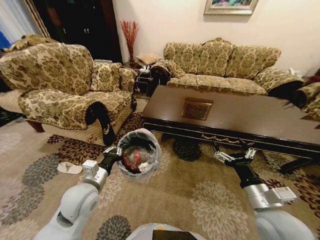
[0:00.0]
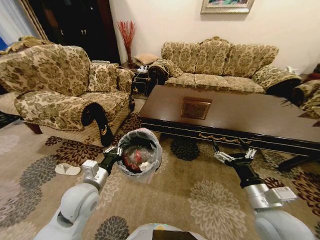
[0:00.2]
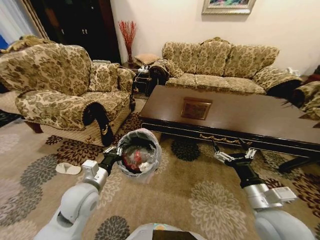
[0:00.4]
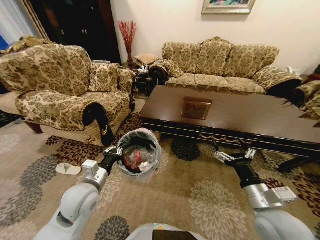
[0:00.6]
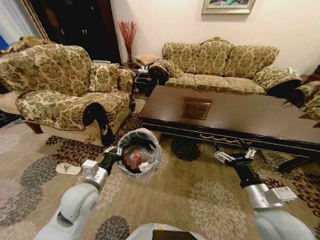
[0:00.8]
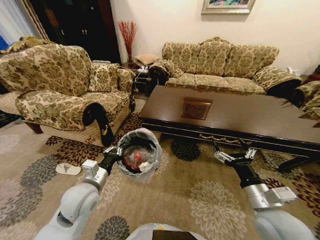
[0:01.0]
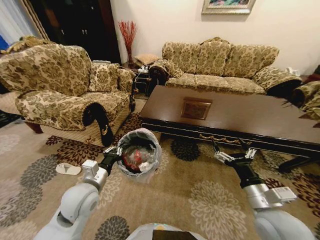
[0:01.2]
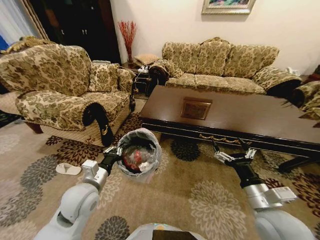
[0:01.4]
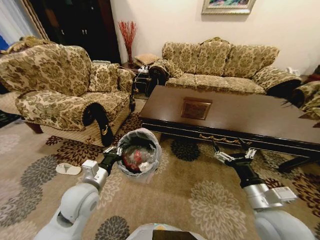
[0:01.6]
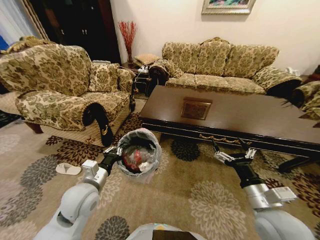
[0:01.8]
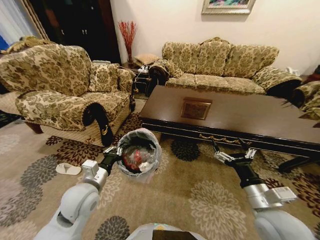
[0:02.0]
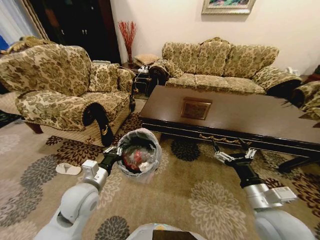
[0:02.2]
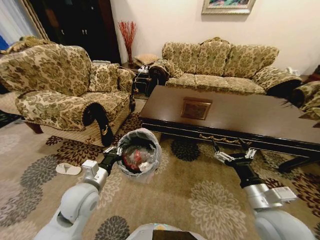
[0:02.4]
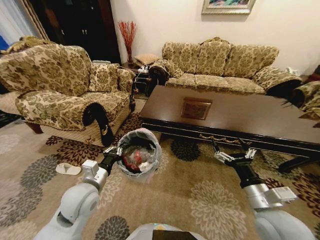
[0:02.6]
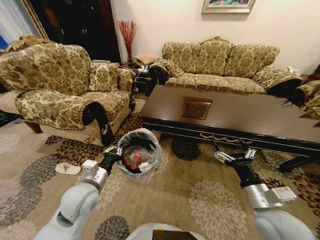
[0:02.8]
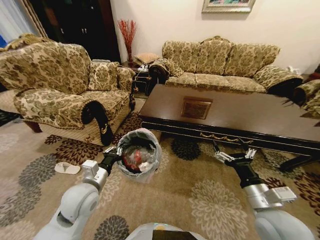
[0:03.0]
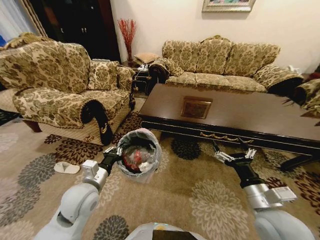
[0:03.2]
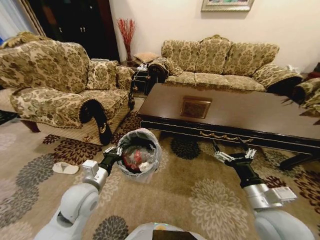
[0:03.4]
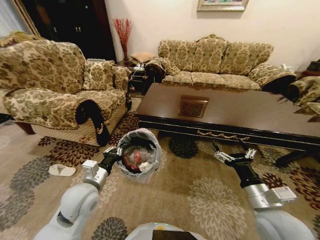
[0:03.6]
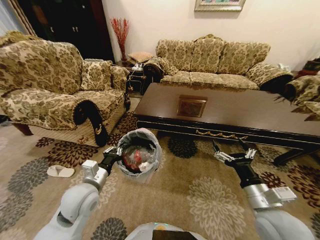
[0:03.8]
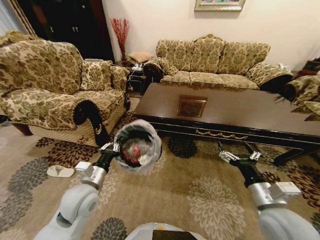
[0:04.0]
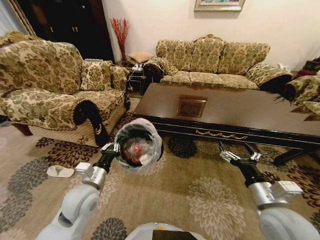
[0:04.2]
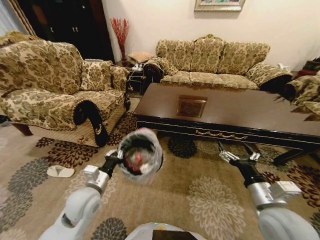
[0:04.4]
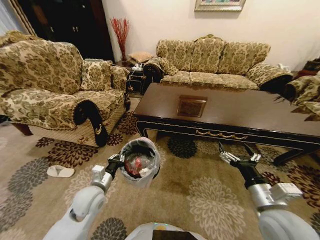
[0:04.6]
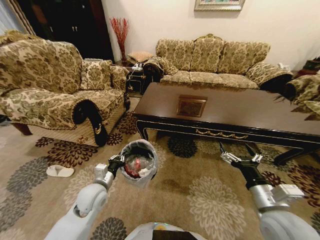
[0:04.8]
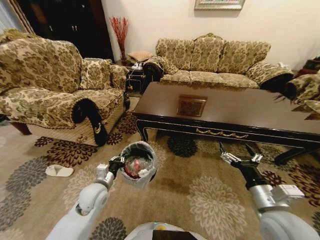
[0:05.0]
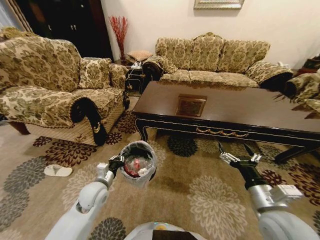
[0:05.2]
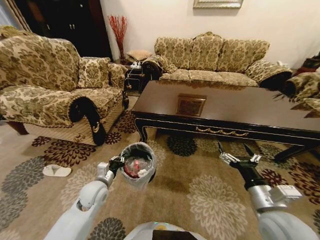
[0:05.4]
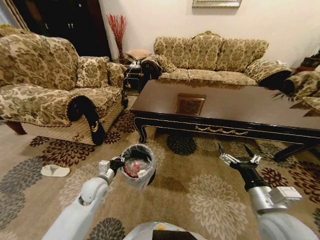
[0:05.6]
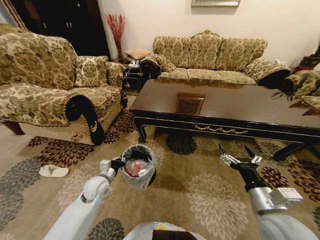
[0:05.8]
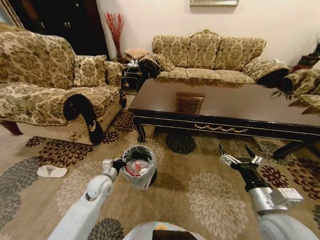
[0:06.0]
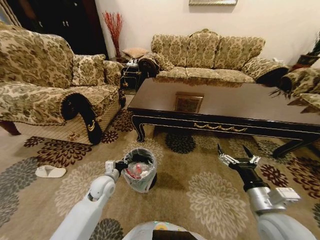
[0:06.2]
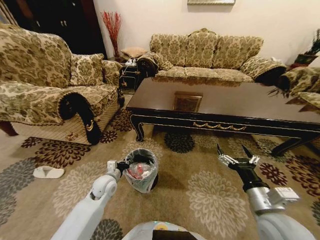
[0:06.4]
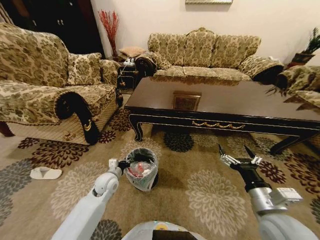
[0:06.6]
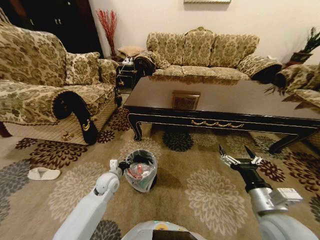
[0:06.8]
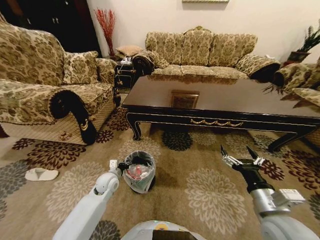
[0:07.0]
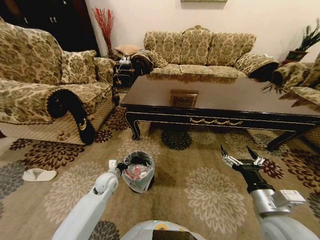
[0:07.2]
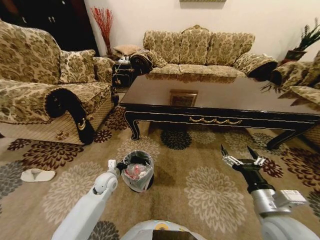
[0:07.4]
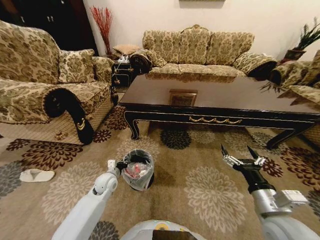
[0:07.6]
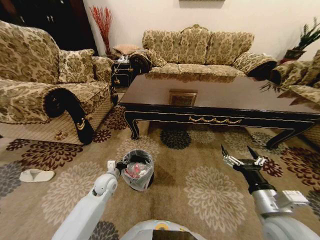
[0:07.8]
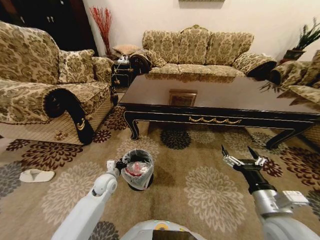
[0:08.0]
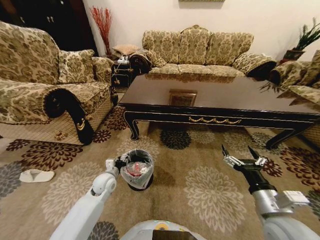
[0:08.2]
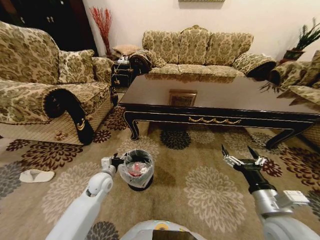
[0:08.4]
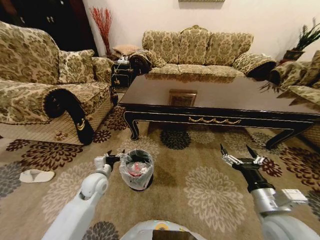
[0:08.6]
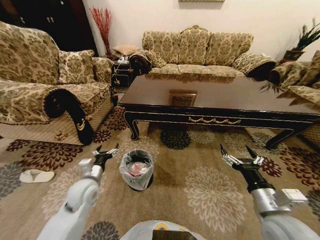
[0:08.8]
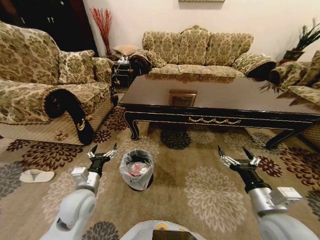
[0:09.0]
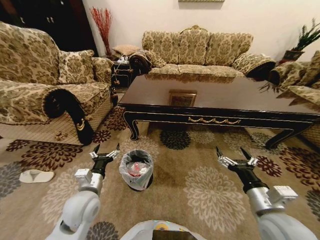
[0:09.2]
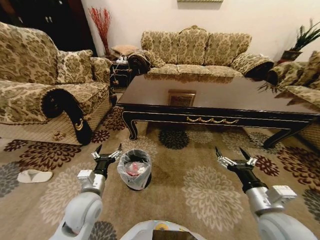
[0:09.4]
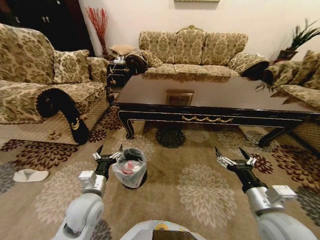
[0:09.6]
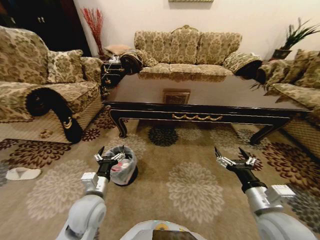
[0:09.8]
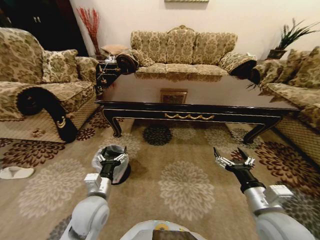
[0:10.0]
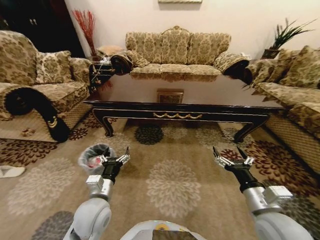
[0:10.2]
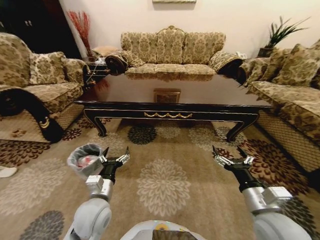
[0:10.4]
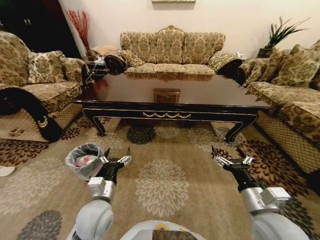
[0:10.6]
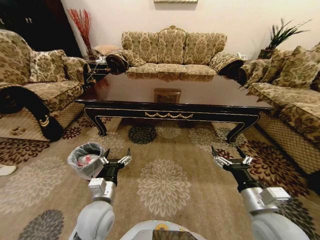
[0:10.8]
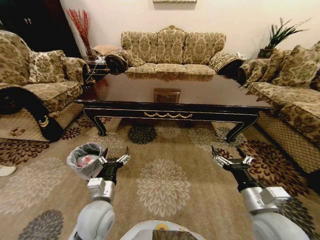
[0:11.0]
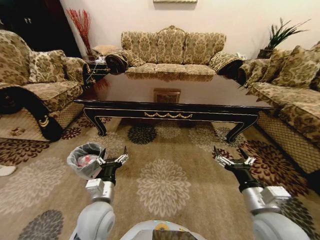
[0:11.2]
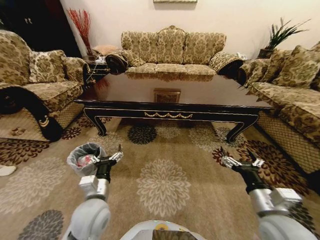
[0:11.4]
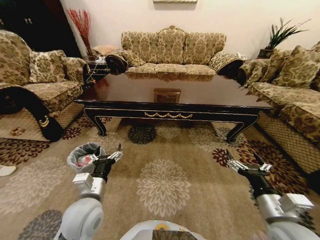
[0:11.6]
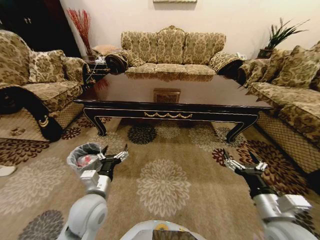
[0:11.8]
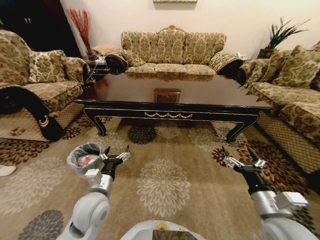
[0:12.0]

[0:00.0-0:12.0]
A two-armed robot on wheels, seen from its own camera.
Task of the whole recording: Move to the front of the table and place the trash on the table into the trash bin.
0:00.0 to 0:03.0: Both grippers stay put.
0:04.4 to 0:06.0: The left gripper is displaced forward and downward by about 10 cm.
0:07.6 to 0:09.0: The left gripper heads upward and backward, covering about 15 cm, and opens up.
0:09.0 to 0:10.4: The left gripper goes some 5 cm to the right.
0:10.4 to 0:12.0: The grippers move only a little.
